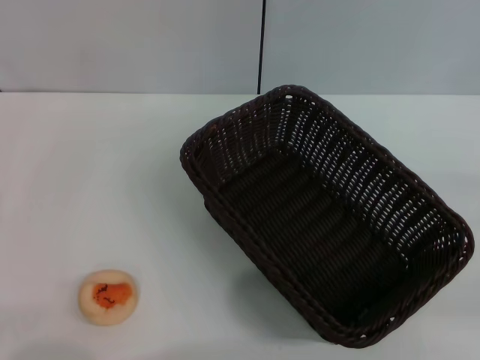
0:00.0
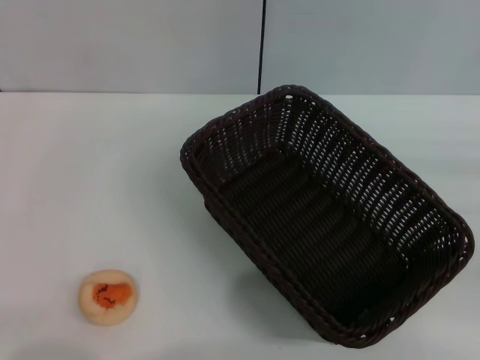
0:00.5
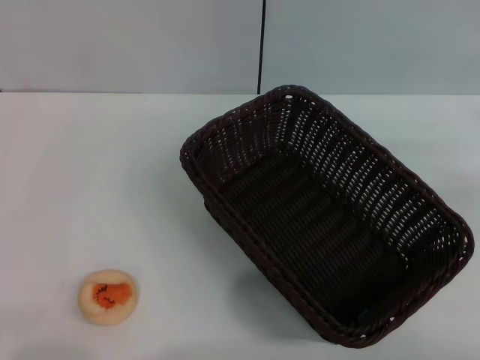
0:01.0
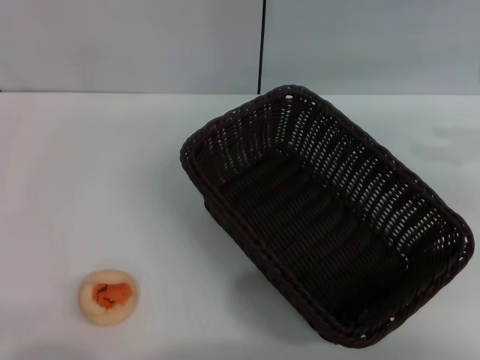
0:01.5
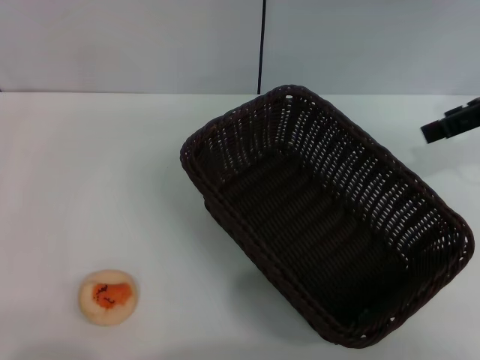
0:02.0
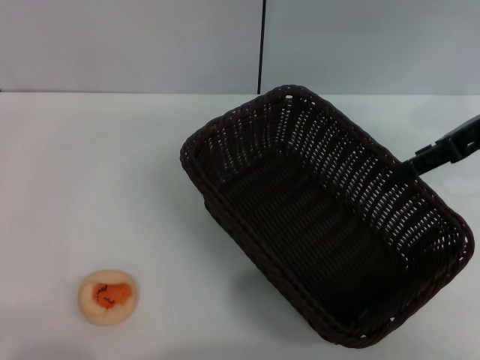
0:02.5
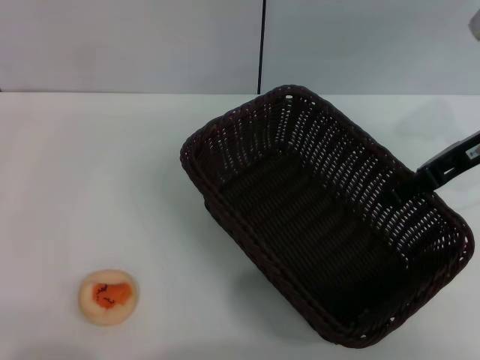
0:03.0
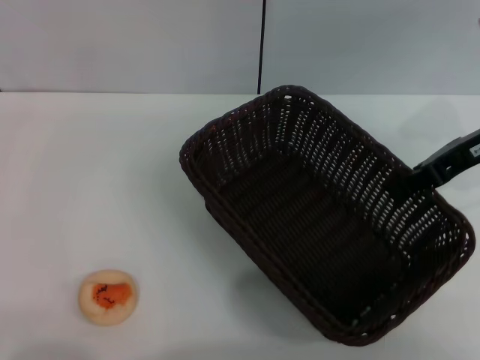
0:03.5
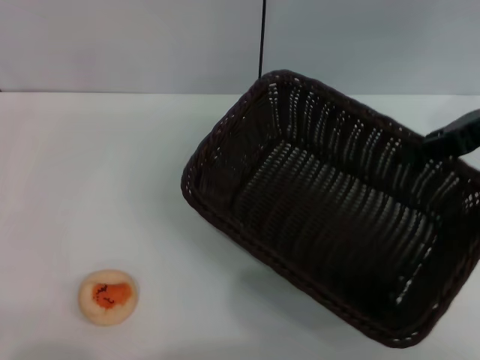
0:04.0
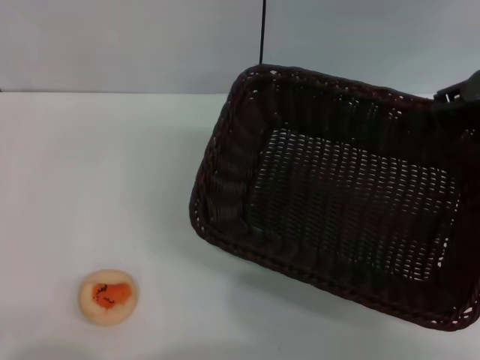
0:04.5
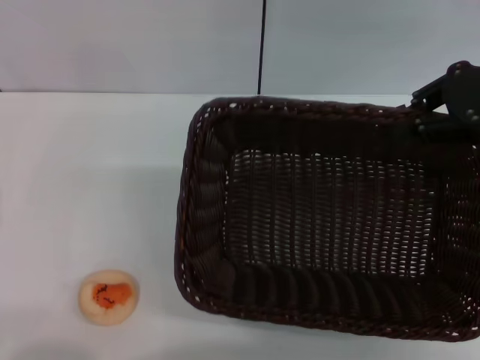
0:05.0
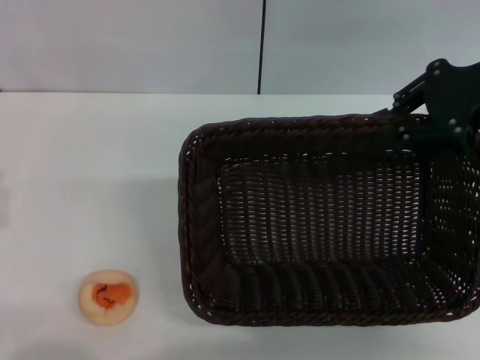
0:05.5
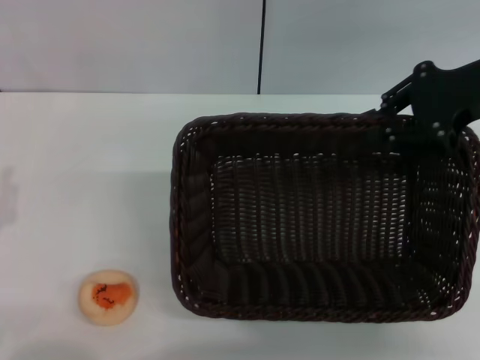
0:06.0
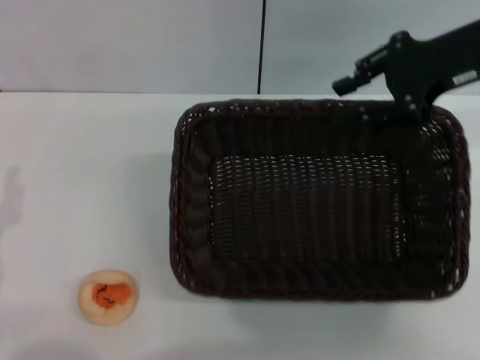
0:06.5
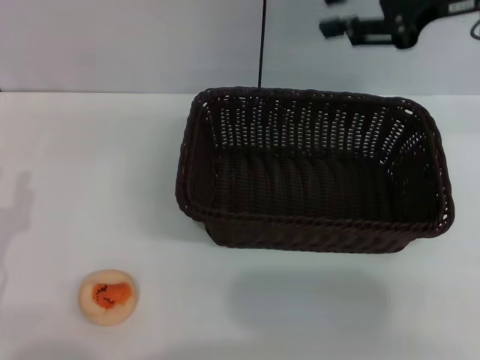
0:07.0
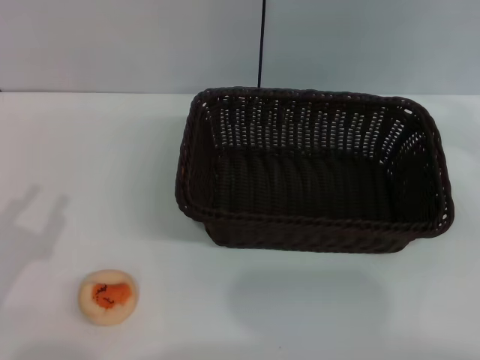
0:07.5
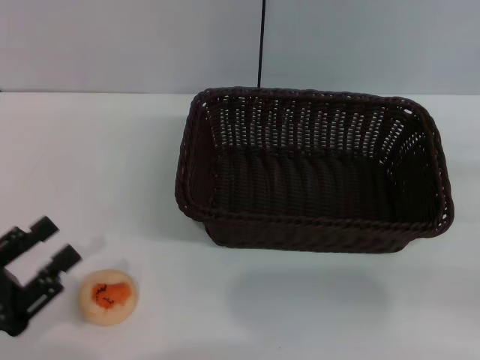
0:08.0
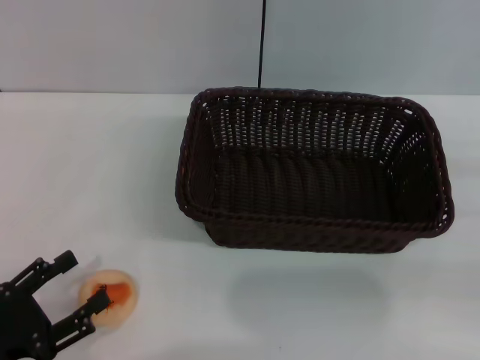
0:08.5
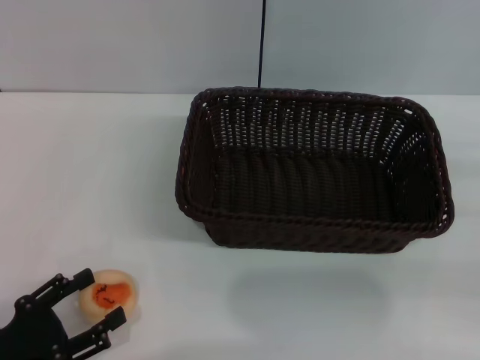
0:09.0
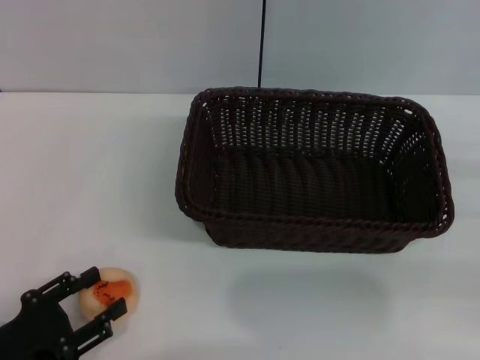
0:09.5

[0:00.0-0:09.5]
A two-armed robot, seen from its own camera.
Step, 0:00.0 to 0:06.5: Move the basket to the center of view with the right gripper.
0:00.0 to 0:02.0: The right gripper shifts some 25 cm upward, forward and to the left, and opens up.
0:02.0 to 0:04.0: The right gripper closes up.
0:05.5 to 0:07.5: The right gripper travels to the right, backward and downward by approximately 10 cm.
0:07.5 to 0:09.5: The left gripper moves some 5 cm.

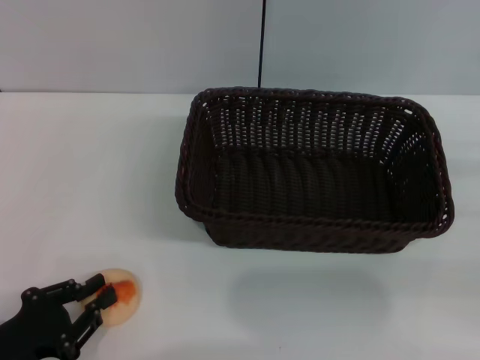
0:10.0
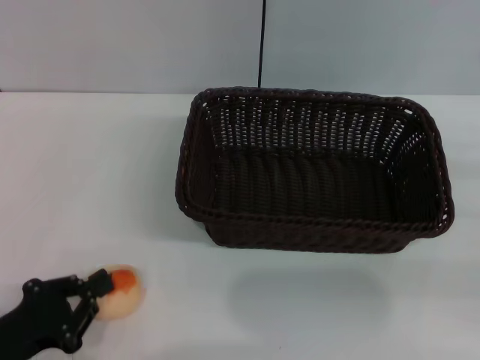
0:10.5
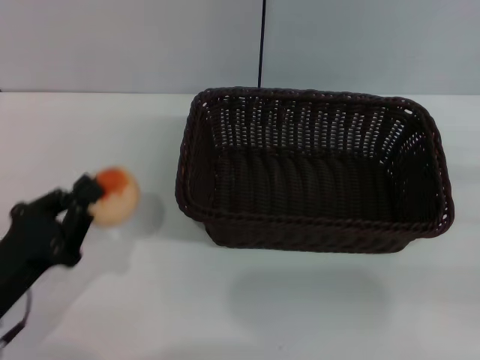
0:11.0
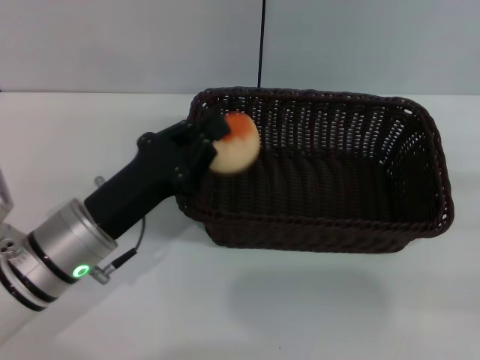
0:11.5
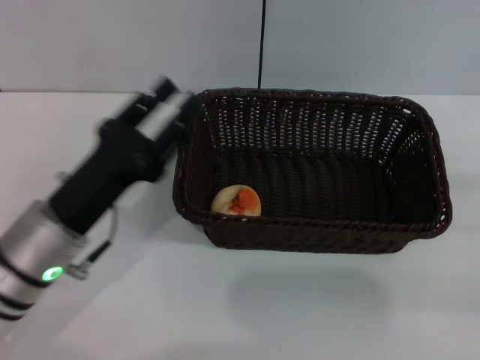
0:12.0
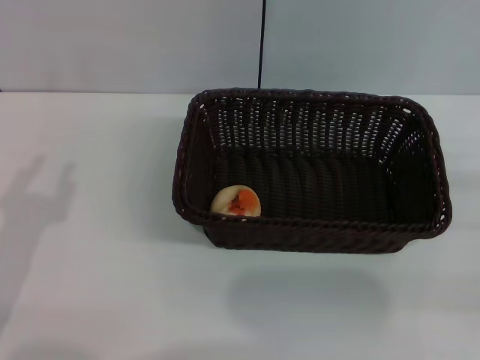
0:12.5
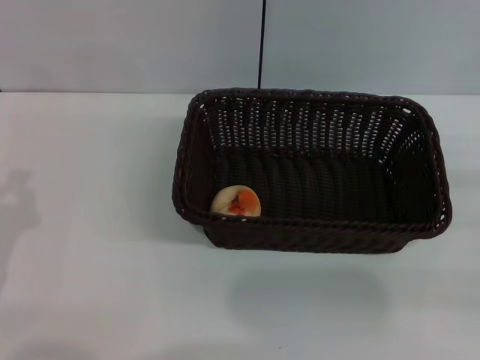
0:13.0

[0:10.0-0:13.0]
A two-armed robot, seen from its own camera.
Step, 0:11.0 to 0:11.5: Place the egg yolk pastry into the basket with the left gripper.
0:10.0 to 0:11.5: The left gripper travels to the right and forward by roughly 15 cm, and closes its fingers.
0:11.5 to 0:13.0: The left gripper heads to the left and backward, covering some 15 cm, and opens, then closes again.

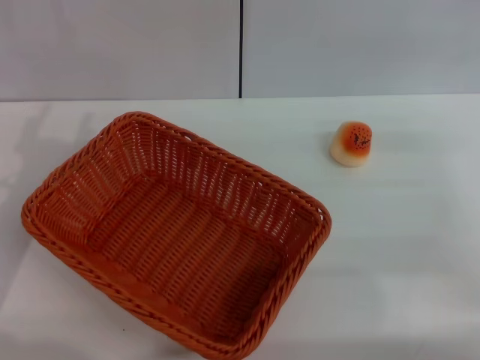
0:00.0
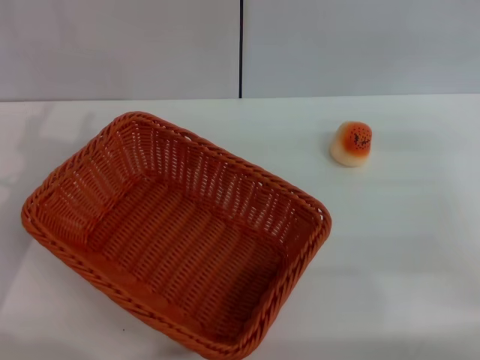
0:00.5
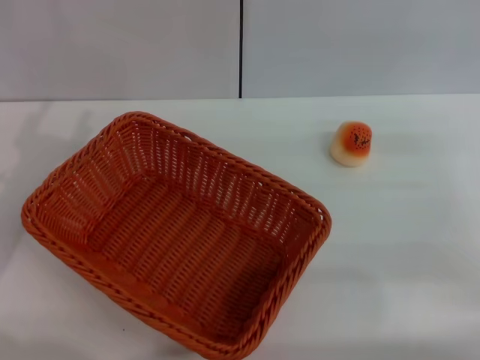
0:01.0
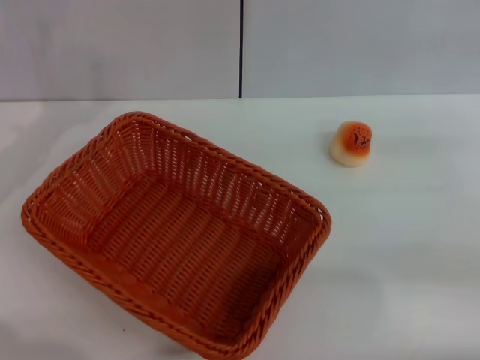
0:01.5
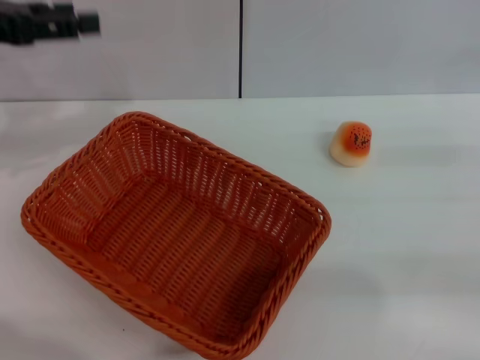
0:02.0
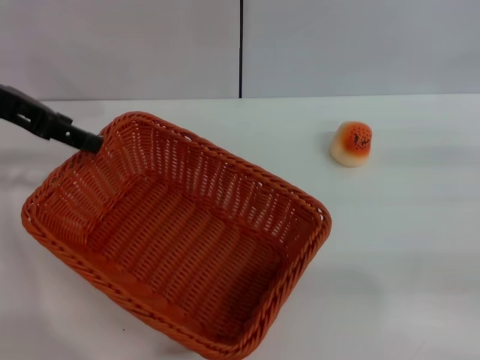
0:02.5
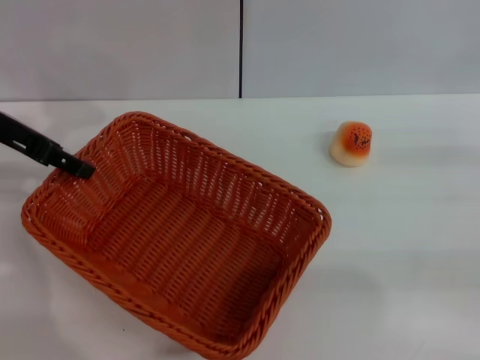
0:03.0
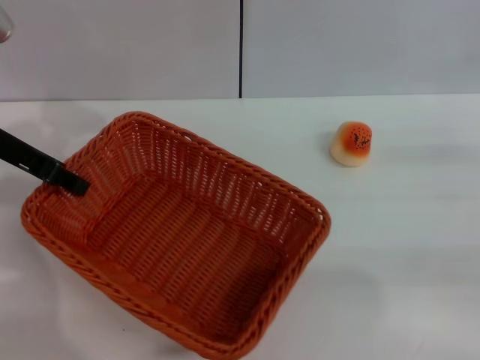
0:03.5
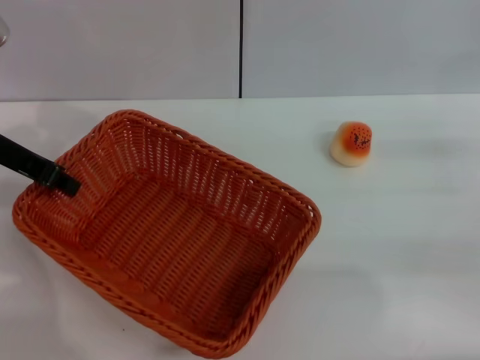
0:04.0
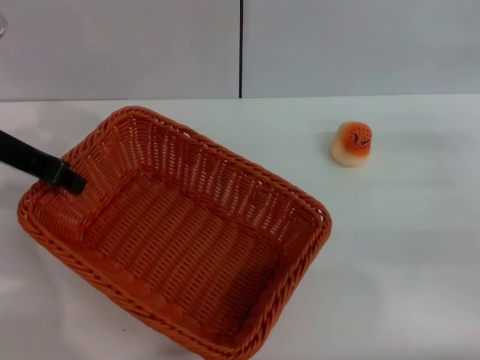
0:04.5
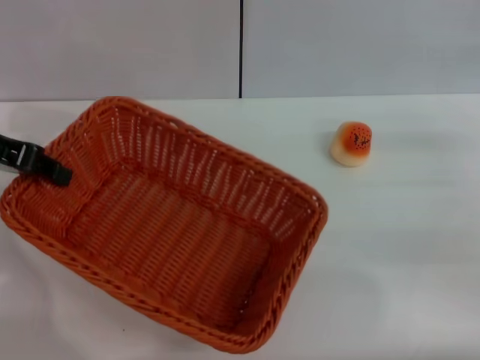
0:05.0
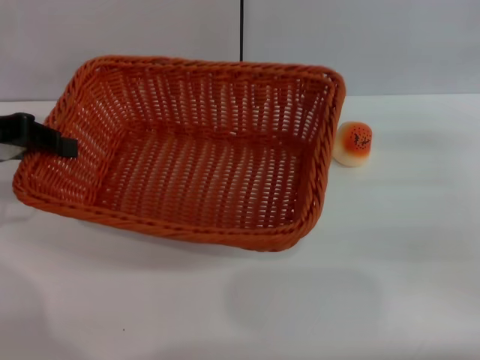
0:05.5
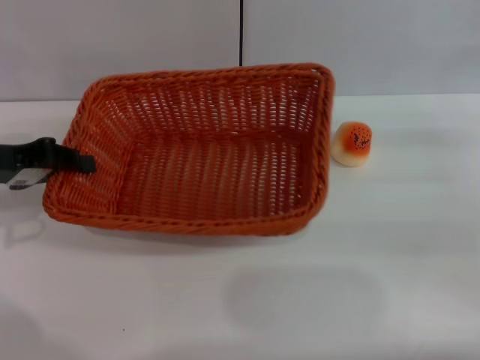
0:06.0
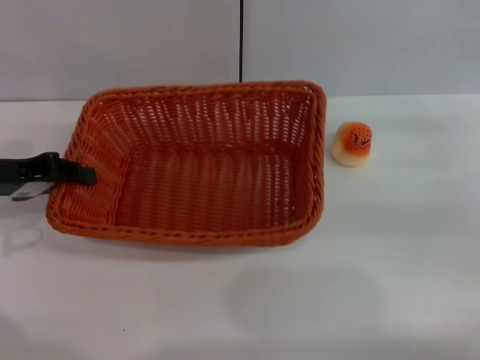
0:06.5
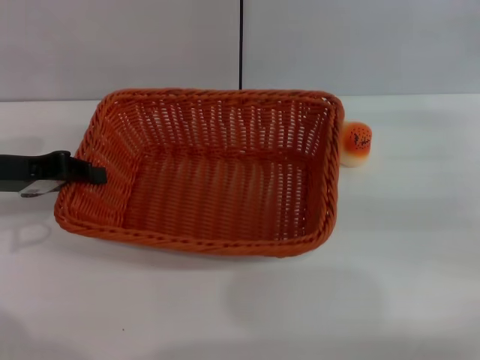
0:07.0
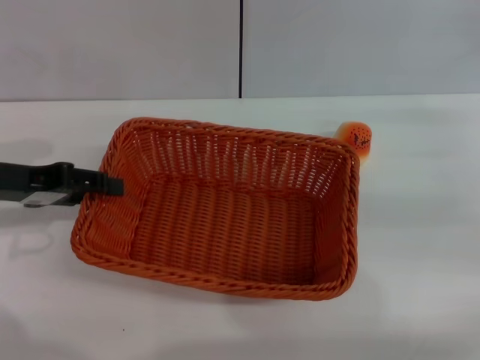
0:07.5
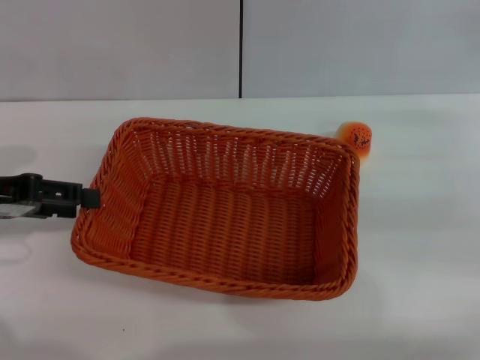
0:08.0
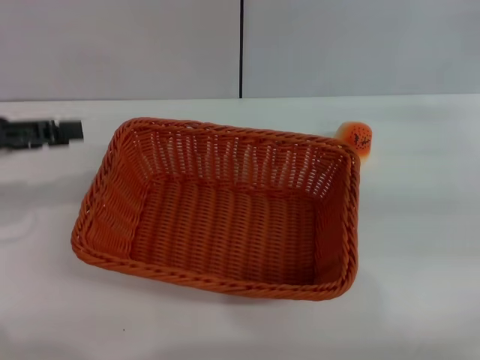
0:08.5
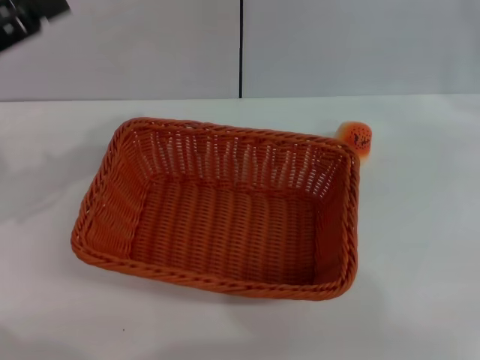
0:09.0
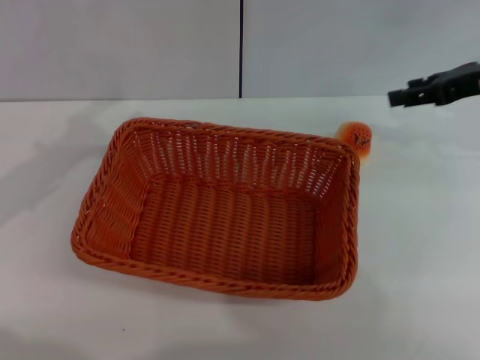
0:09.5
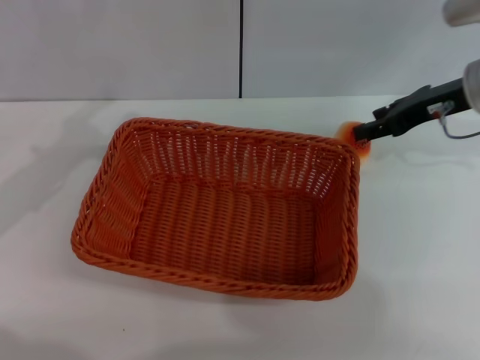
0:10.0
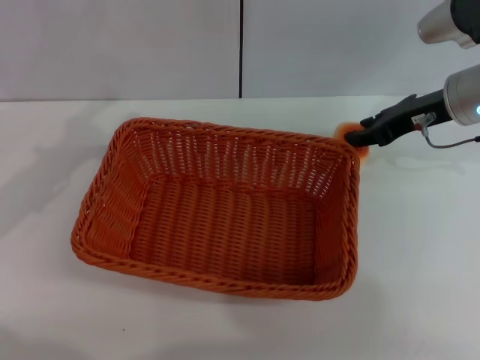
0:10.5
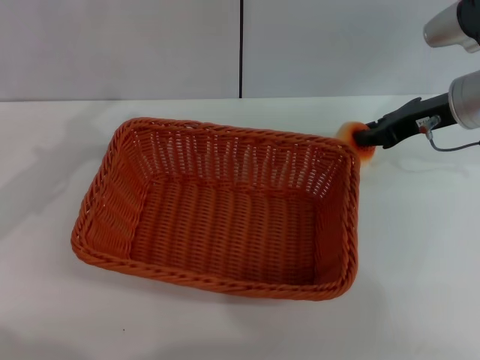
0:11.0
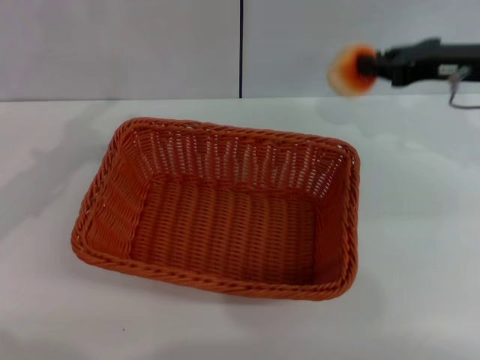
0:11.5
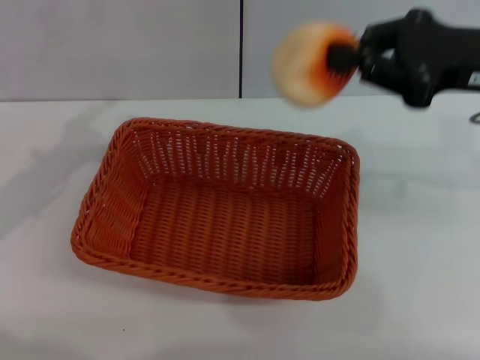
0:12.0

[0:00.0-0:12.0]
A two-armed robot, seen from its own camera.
Step, 0:00.0 to 0:08.0: Move the basket to the center of view with the left gripper.
Step, 0:08.5 to 0:11.0: Pick up the egg yolk pastry with the right gripper.
0:00.0 to 0:02.0: The right gripper goes some 5 cm to the right. Meanwhile the left gripper moves upward and forward, some 15 cm.
0:02.0 to 0:04.0: The left gripper is displaced downward by about 5 cm, and closes its fingers.
0:04.0 to 0:06.0: The left gripper ends up some 5 cm from where it was.
0:06.0 to 0:08.0: The left gripper opens up.
0:08.0 to 0:10.0: The right gripper heads to the left and forward, covering some 15 cm.
0:10.0 to 0:12.0: The right gripper heads backward and upward, covering roughly 10 cm, and closes.

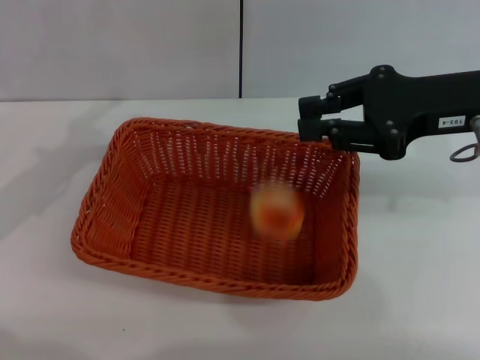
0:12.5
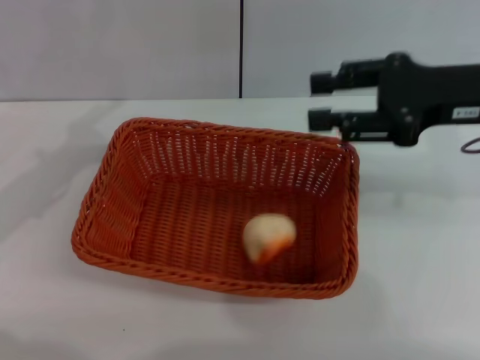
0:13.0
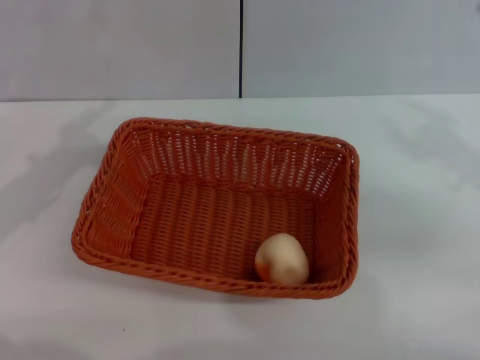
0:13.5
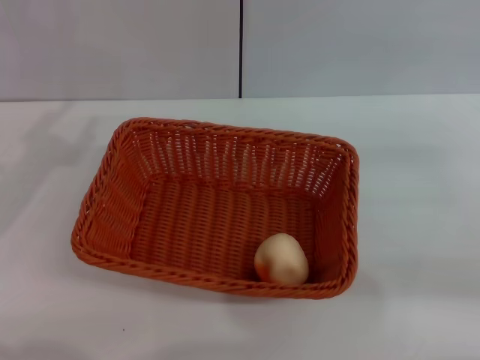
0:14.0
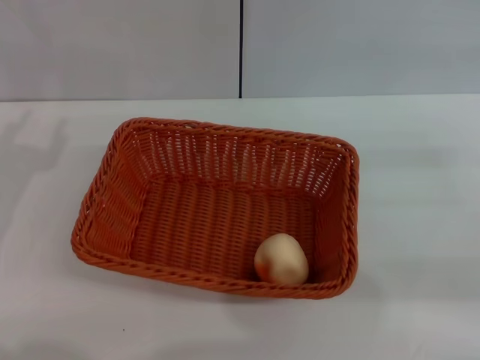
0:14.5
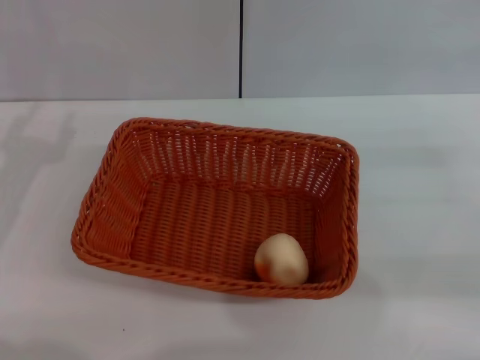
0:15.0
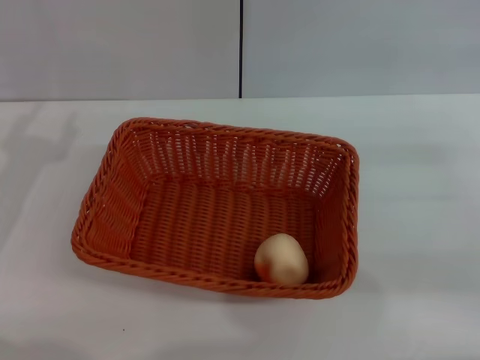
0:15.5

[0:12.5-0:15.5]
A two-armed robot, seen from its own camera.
0:12.5 to 0:14.0: The right gripper heads to the right, downward and backward, covering about 15 cm, and opens its fingers.
